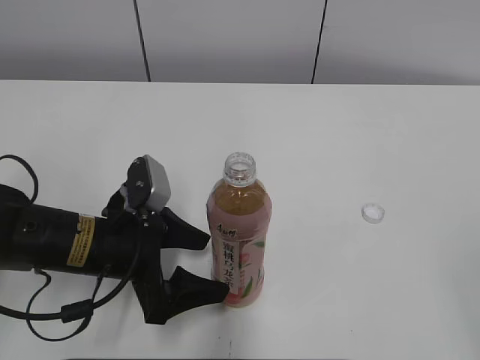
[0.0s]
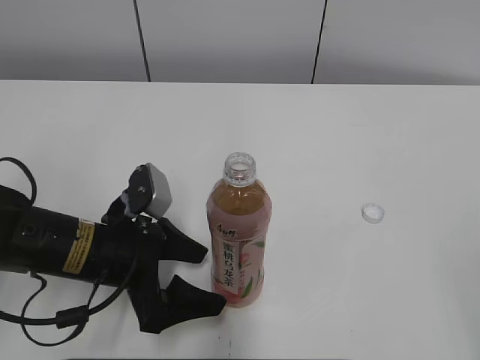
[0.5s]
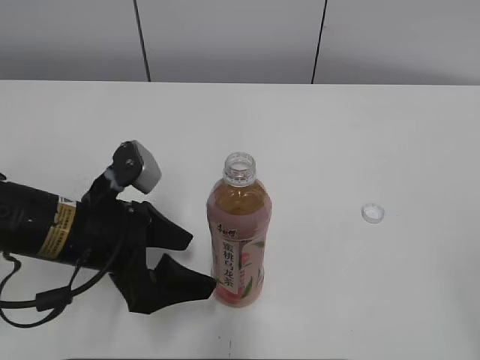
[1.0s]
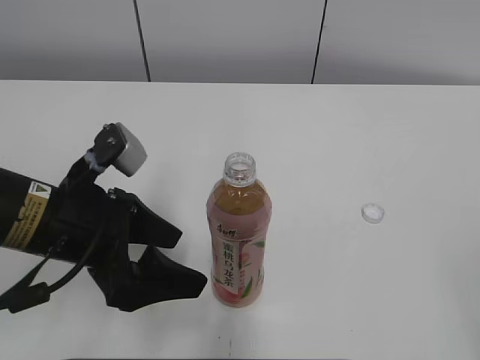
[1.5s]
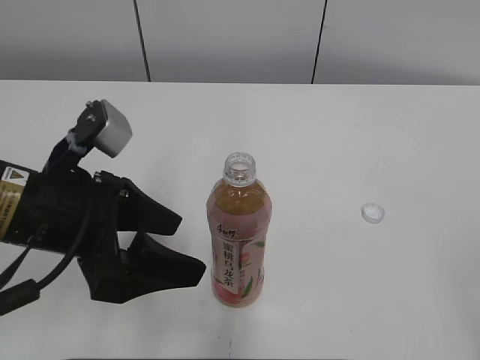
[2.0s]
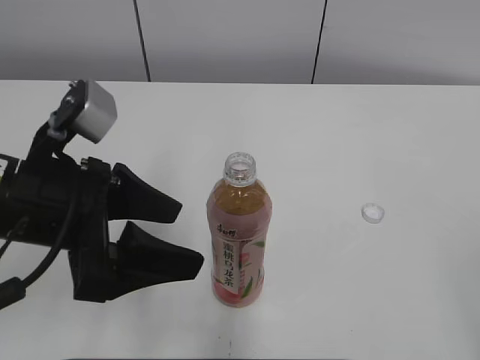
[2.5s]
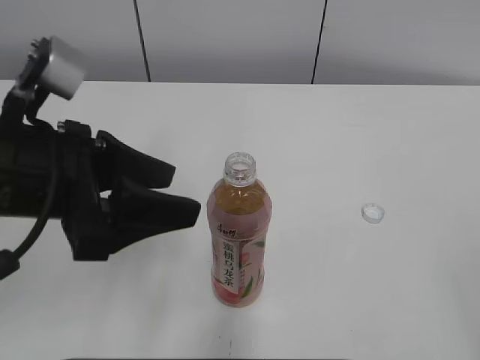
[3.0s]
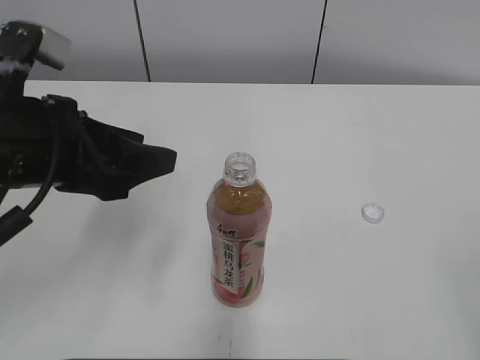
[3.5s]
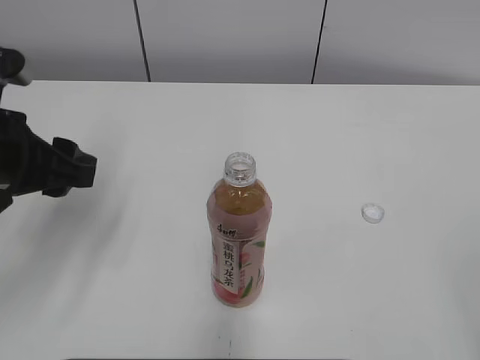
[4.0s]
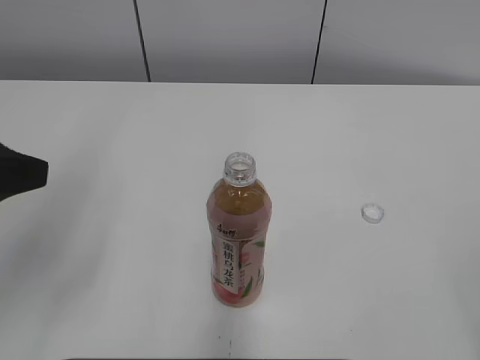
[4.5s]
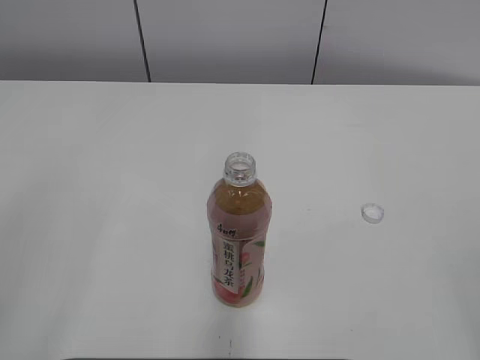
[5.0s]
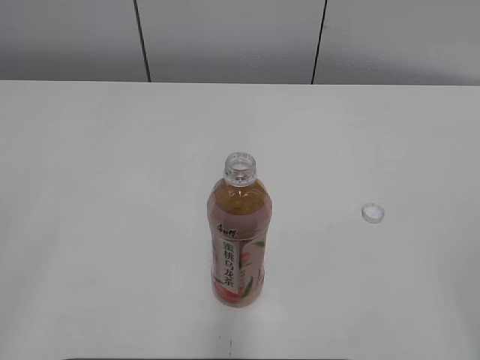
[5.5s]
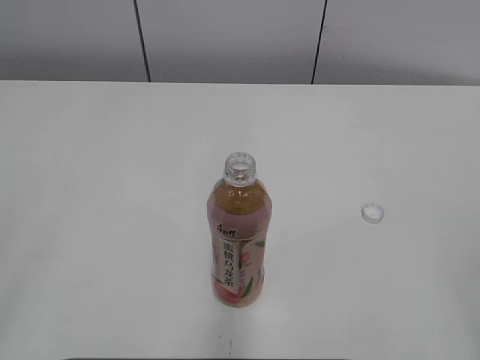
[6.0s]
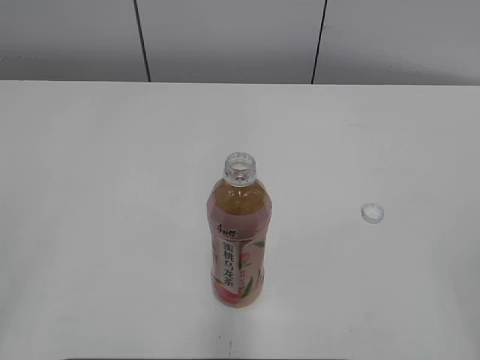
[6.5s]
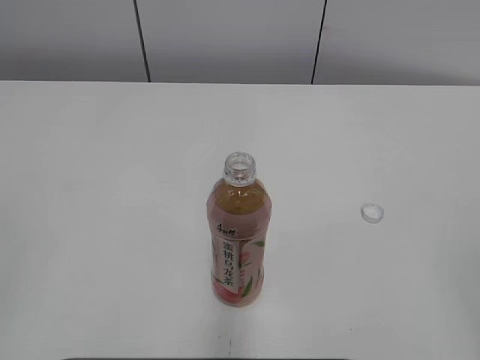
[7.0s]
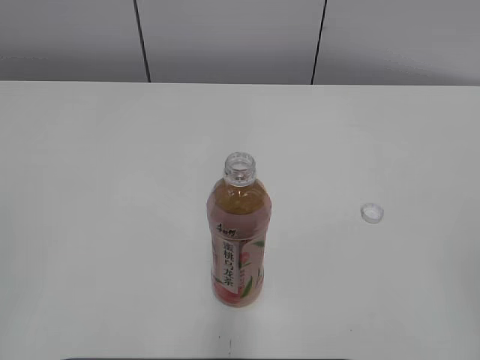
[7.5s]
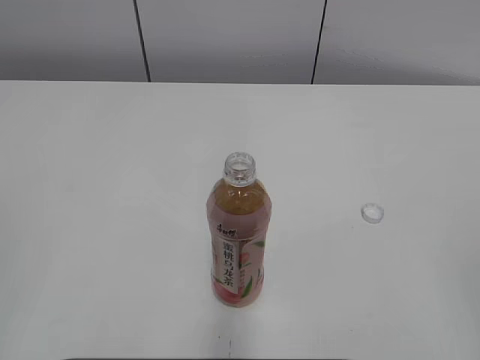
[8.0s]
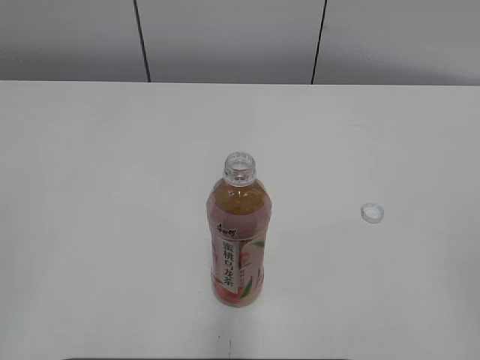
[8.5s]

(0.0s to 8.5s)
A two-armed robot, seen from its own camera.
0.0s - 2.0s: The left gripper shifts approximately 10 cm upward.
2.0s - 4.0s: The left gripper goes some 5 cm to the left, and closes its fingers.
4.0s - 6.5s: The left gripper moves backward, roughly 25 cm, and closes its fingers.

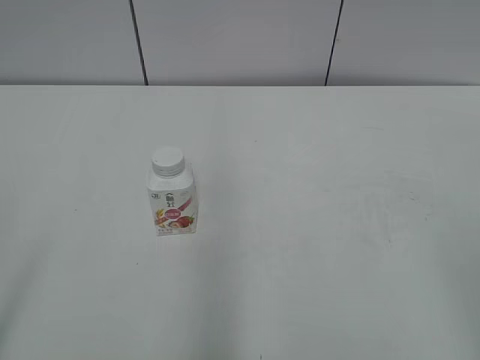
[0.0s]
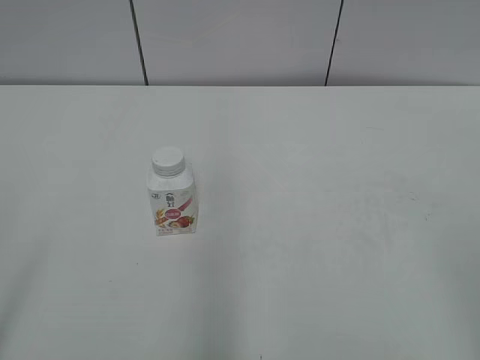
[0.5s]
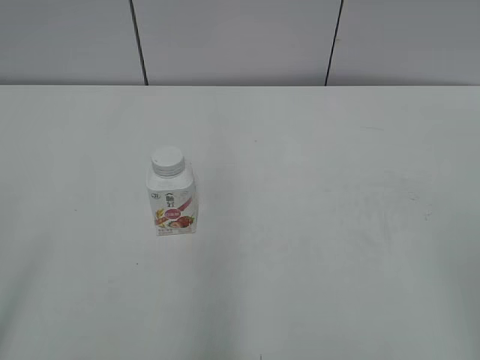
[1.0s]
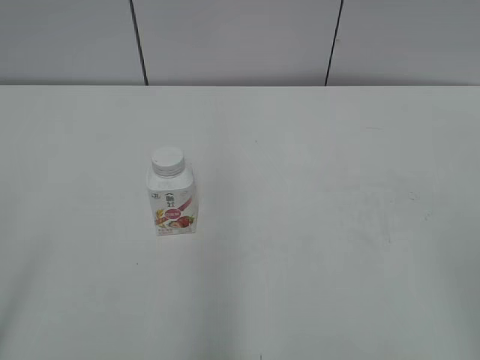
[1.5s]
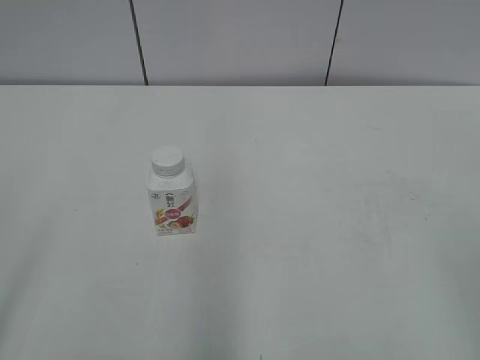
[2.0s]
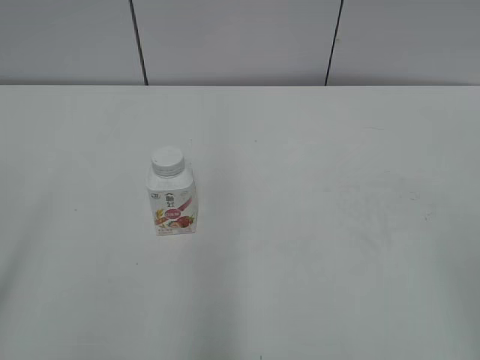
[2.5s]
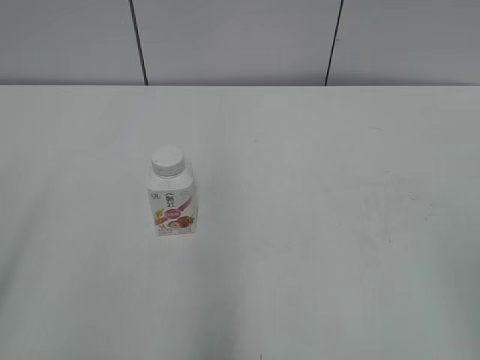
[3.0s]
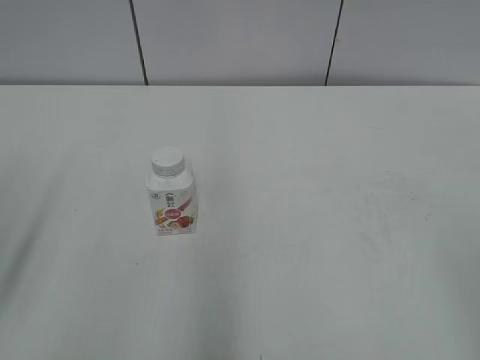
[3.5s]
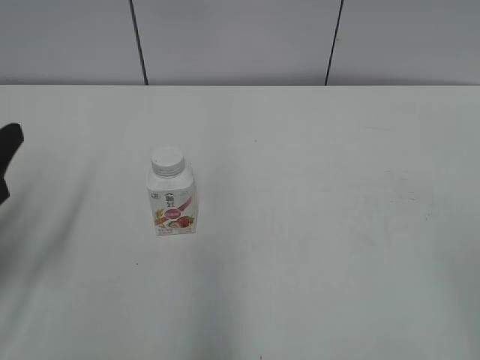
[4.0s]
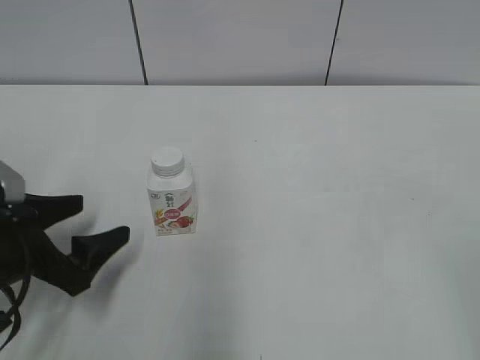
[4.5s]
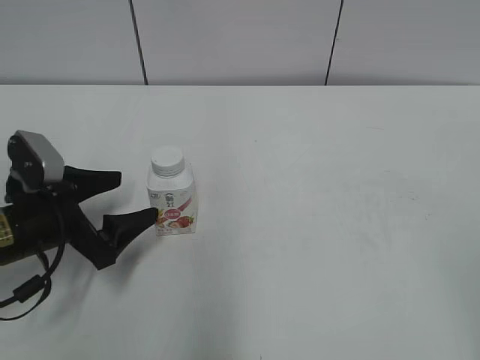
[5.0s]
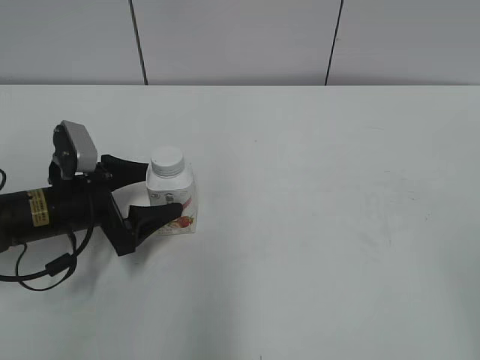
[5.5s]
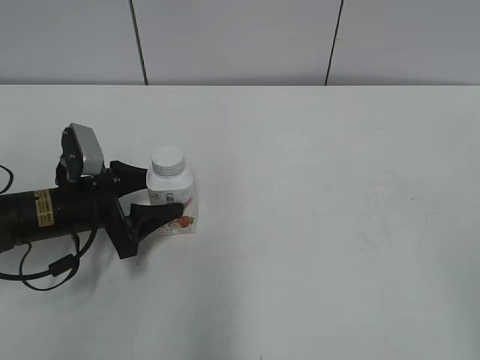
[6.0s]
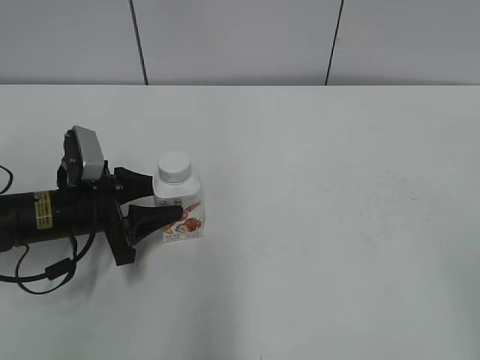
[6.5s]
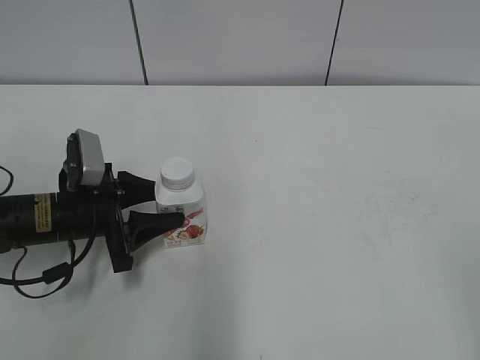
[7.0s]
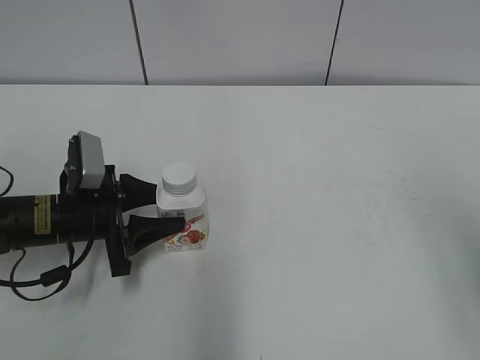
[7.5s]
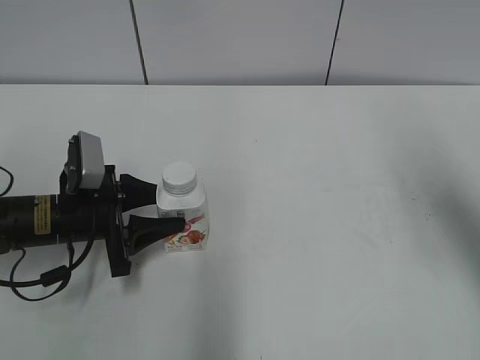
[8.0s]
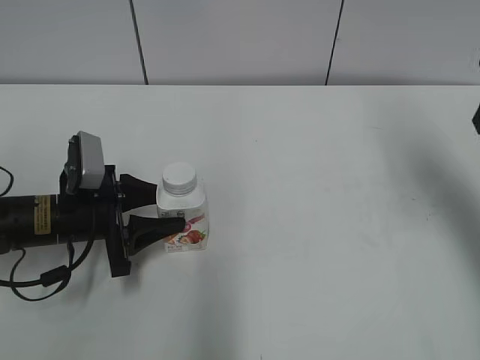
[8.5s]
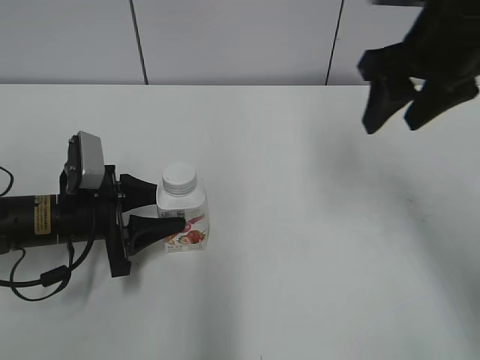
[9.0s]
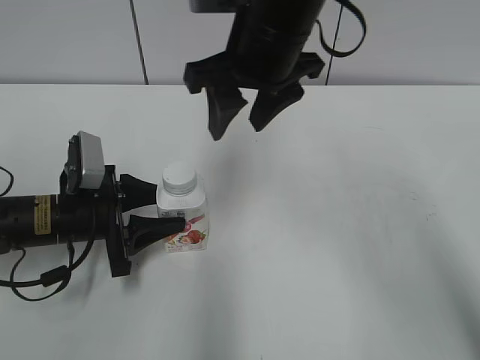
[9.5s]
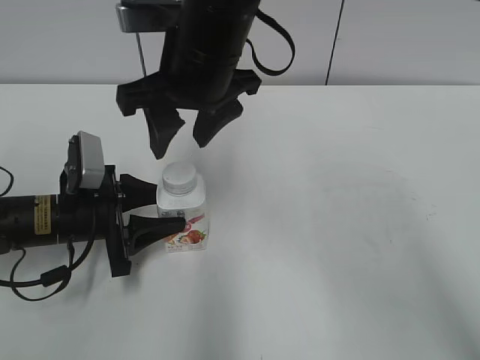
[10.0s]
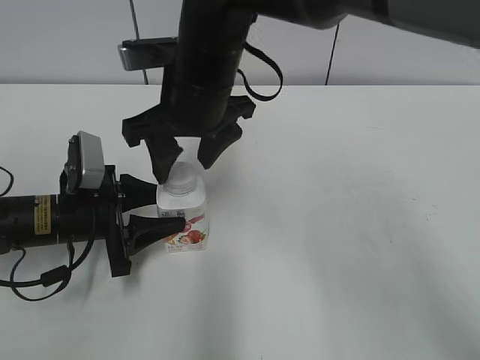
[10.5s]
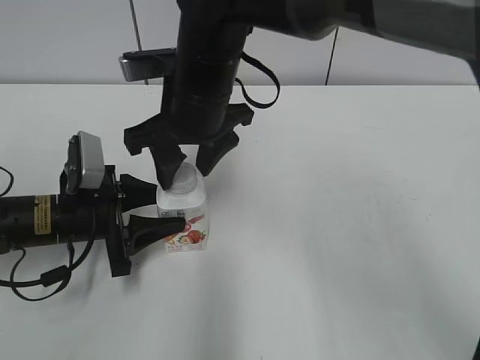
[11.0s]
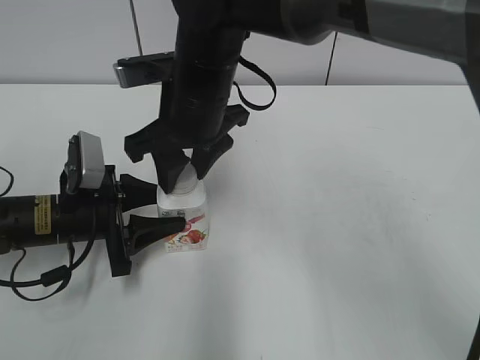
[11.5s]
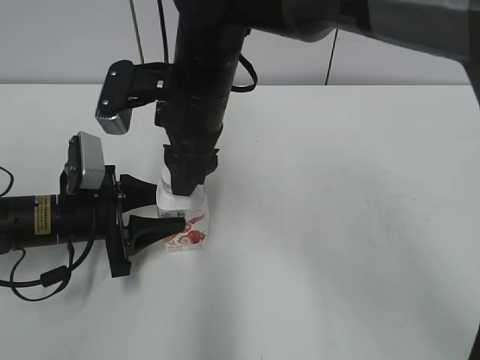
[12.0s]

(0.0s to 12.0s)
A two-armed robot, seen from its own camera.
Step, 0.0s - 6.0s: Grab the Yili Changqing with the left hand.
Step, 6.5s - 8.0s: Move the Yili Changqing from left to right.
2.0s - 4.0s: The left gripper goes about 20 cm forward and downward, and closes and opens again.
4.0s - 6.0s: The left gripper goes approximately 20 cm downward, forward and to the right, and closes up.
6.0s - 8.0s: The left gripper closes, while the right gripper is displaced forward by some 25 cm.
8.0s - 10.0s: The right gripper heads to the left, covering about 30 cm, and closes.
10.0s - 12.0s: The right gripper moves approximately 5 cm, and closes its fingers.

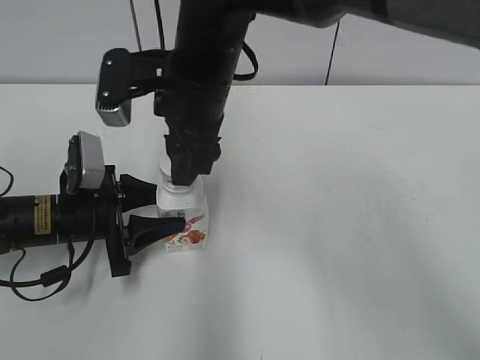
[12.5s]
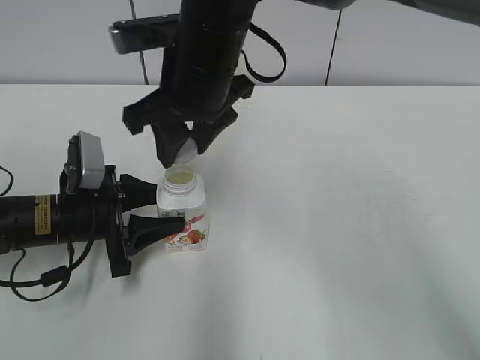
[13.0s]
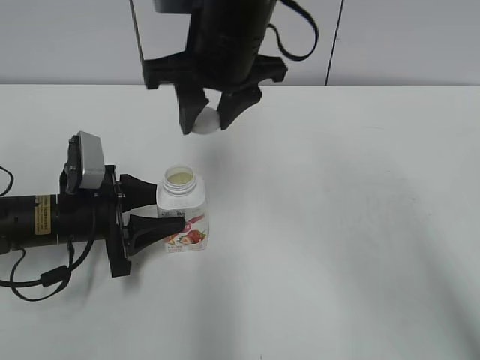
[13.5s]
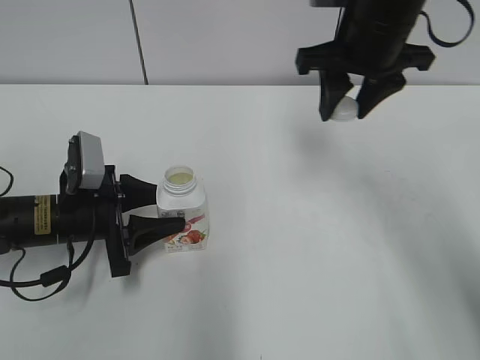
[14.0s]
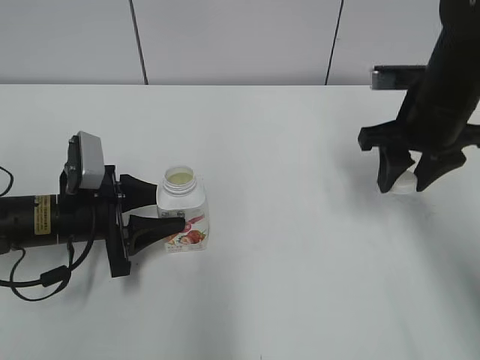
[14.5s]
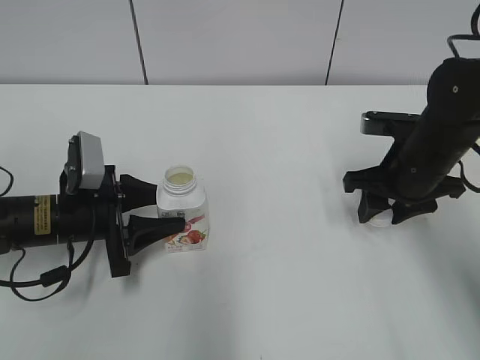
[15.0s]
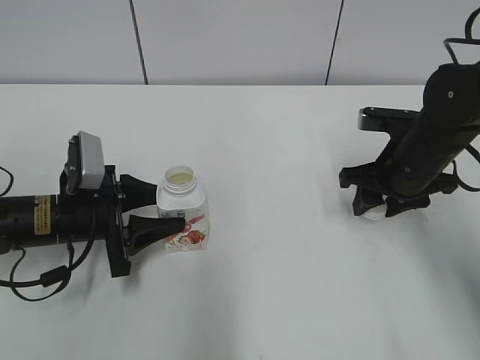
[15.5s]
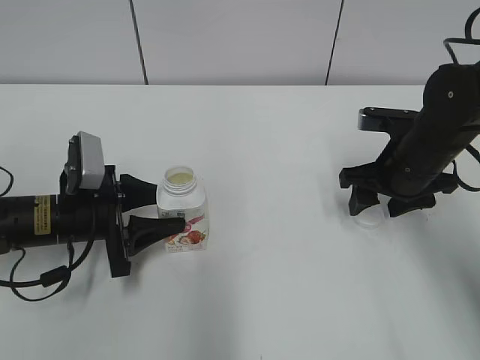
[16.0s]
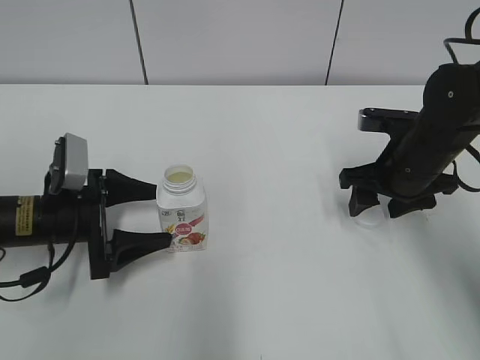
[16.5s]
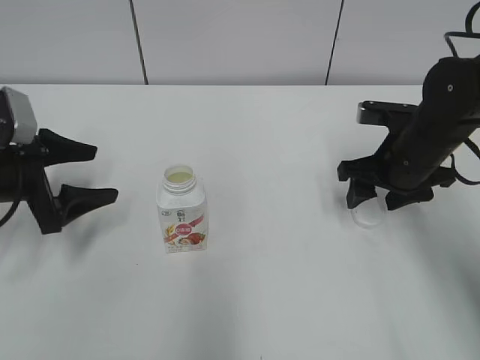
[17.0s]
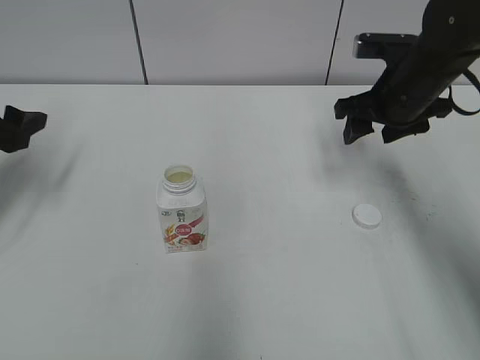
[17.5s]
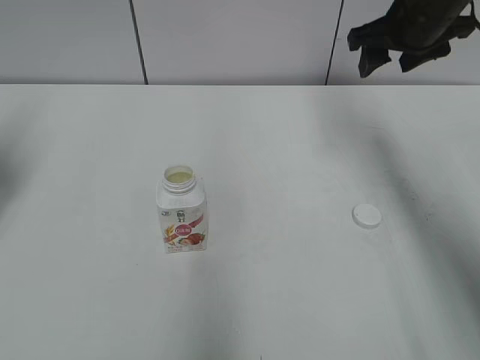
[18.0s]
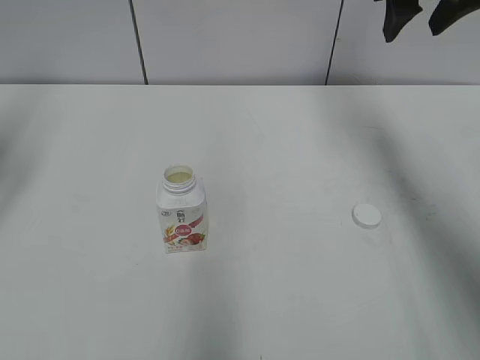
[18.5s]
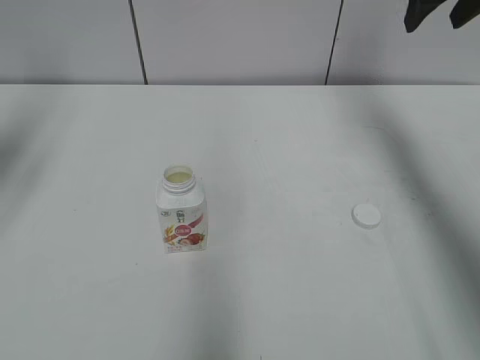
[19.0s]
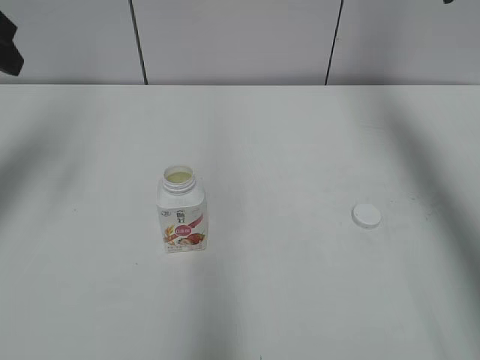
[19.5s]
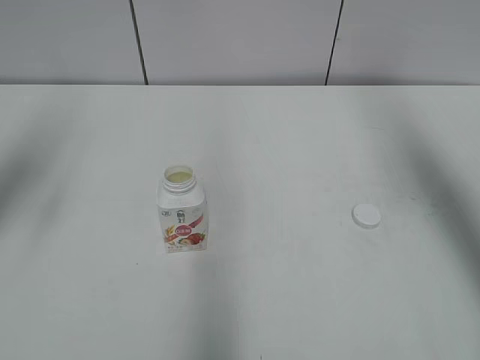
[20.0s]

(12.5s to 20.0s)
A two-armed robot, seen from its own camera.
Step, 13.0s - 15.5s: Place the bottle cap on the right.
12.5s - 14.5s: The right gripper goes approximately 25 cm to the right.
14.5s - 16.5s: The left gripper opens; the right gripper travels downward by some 5 cm, and opens.
16.5s - 18.0s: The right gripper is displaced upward and forward by roughly 15 cm; the left gripper shifts some 20 cm upward and to the left, and closes its fingers.
18.0s - 20.0s: The right gripper travels backward, upward and to the right by some 20 cm.
